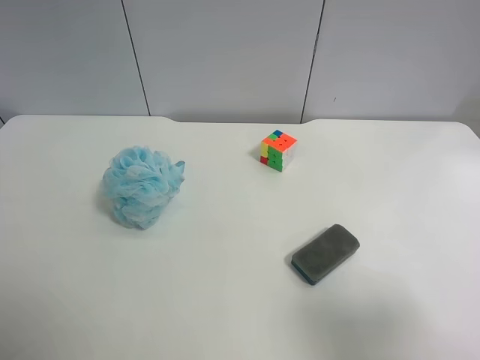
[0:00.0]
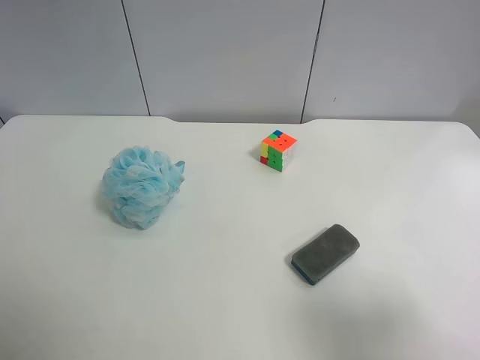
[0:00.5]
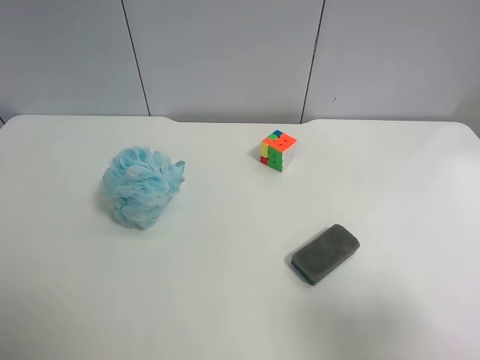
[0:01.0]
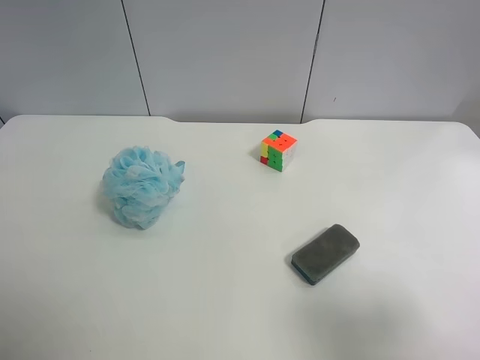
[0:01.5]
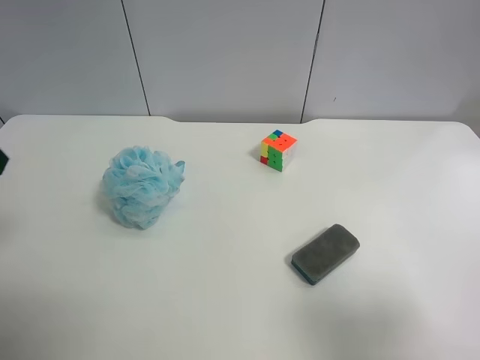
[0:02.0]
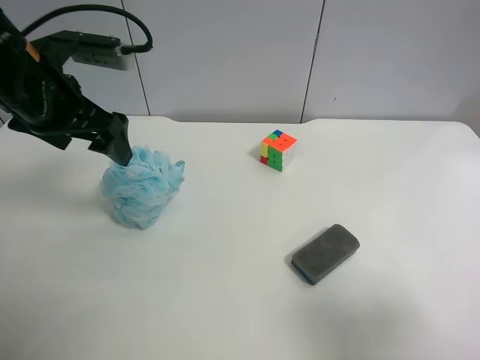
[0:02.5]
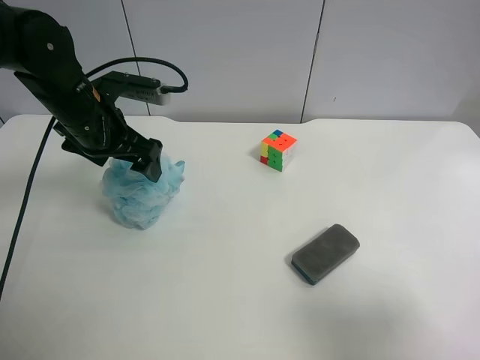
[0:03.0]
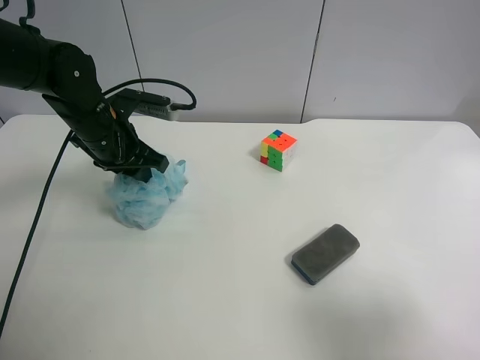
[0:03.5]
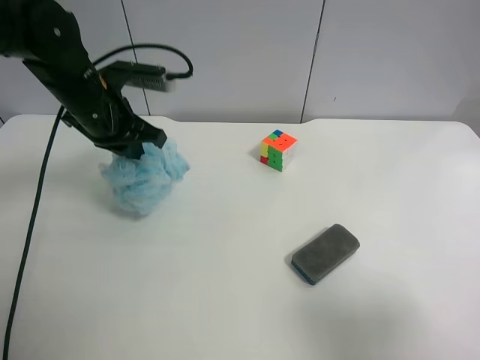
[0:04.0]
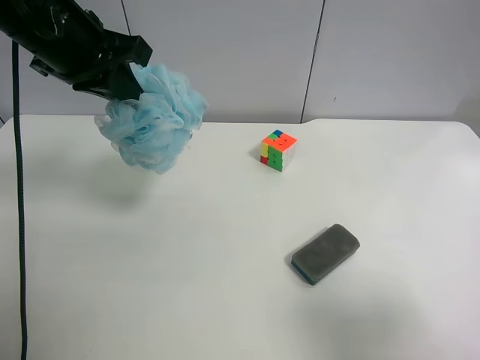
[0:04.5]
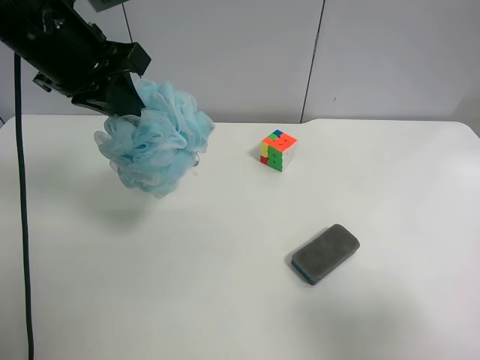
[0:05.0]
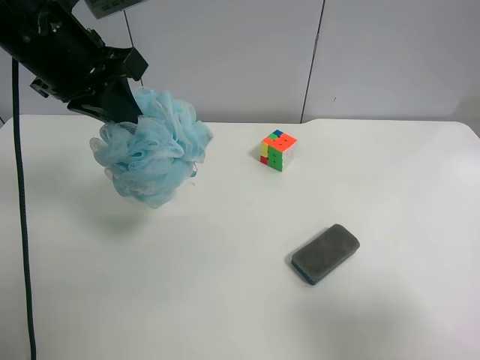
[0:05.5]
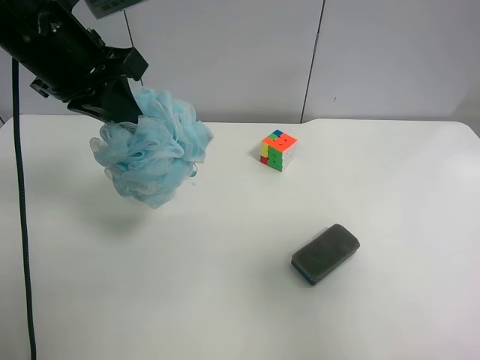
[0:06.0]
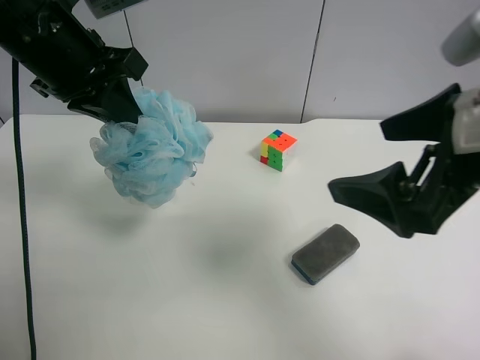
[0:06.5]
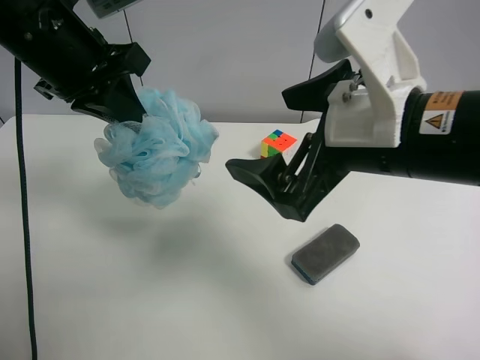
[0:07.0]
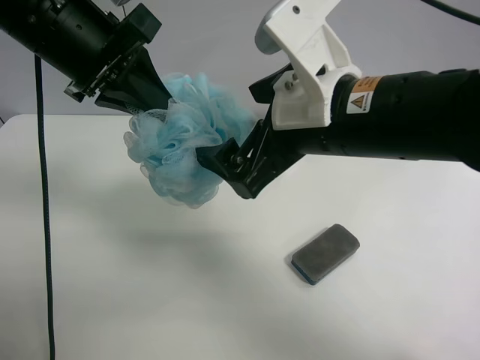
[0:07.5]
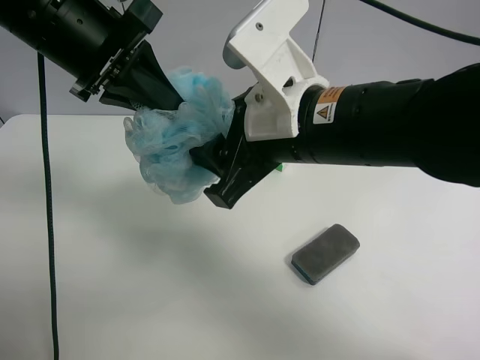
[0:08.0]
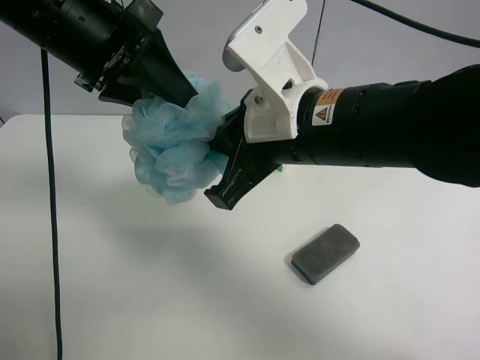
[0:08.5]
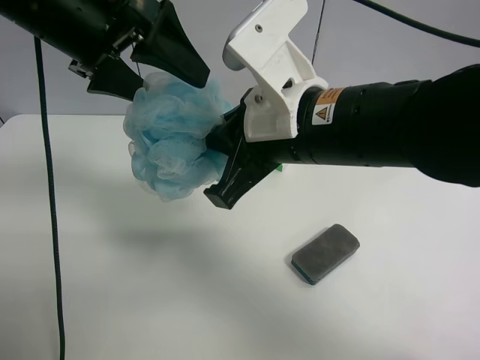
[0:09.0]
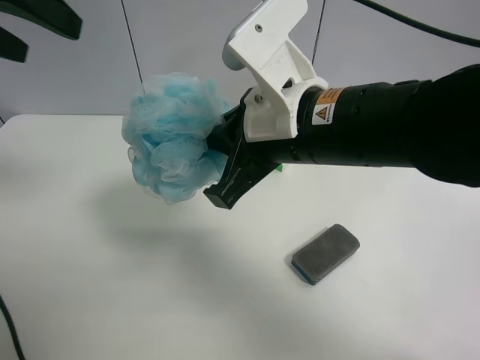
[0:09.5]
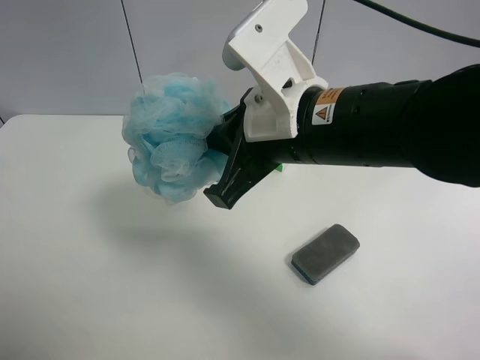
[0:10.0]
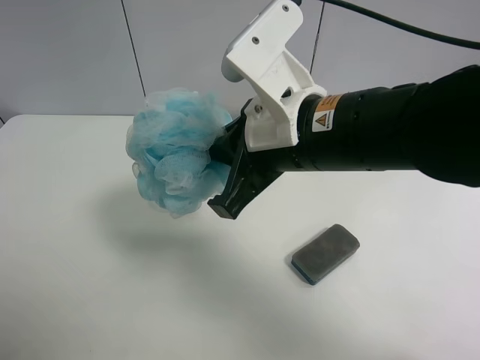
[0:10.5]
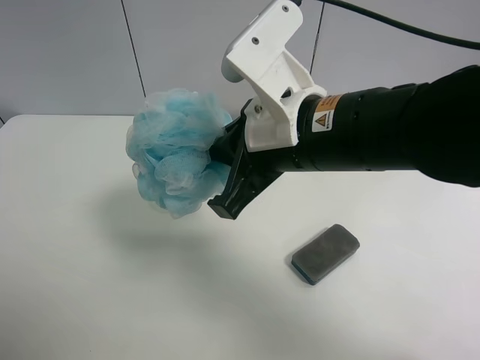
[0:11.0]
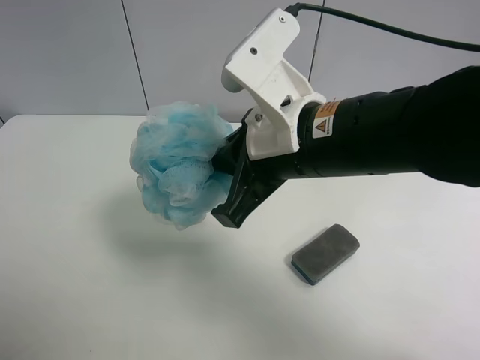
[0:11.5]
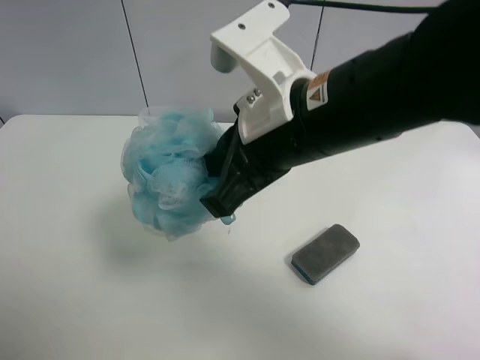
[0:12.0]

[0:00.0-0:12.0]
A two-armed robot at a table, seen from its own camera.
Task of the whole recording: use the left gripper to pick up the item and transfer it from the left gripper to the right gripper.
0:02.0 to 0:04.0: The left gripper shifts approximately 20 cm forward, to the right and downward, and closes up.
0:04.0 to 0:06.0: The left gripper moves upward and backward, about 10 cm. Meanwhile the right gripper moves forward, about 5 cm.
0:06.0 to 0:08.0: The right gripper goes roughly 25 cm to the left and forward, and closes up.
0:08.0 to 0:10.0: The left gripper goes approximately 20 cm to the left, backward and upward, and opens up. The right gripper closes its fingers.
0:10.0 to 0:12.0: The left gripper goes approximately 20 cm downward and backward.

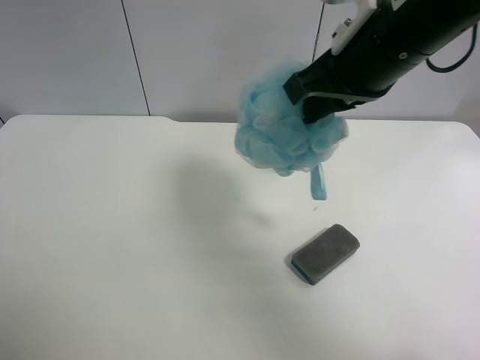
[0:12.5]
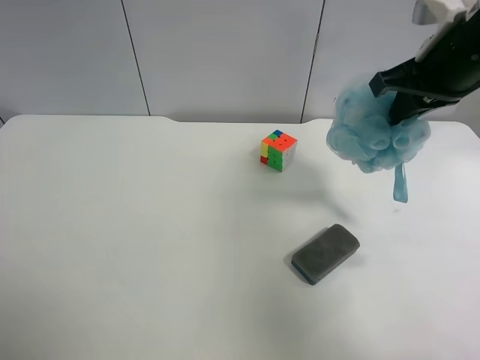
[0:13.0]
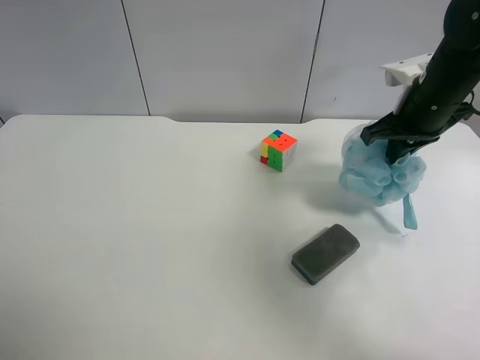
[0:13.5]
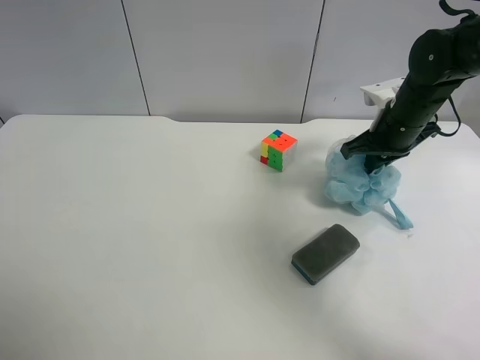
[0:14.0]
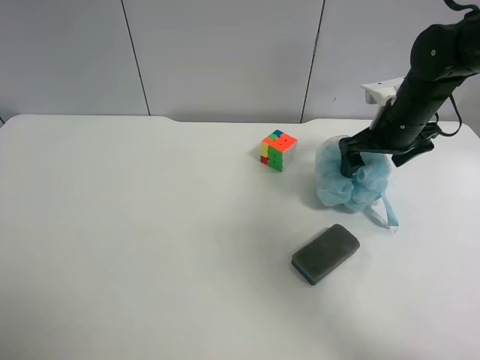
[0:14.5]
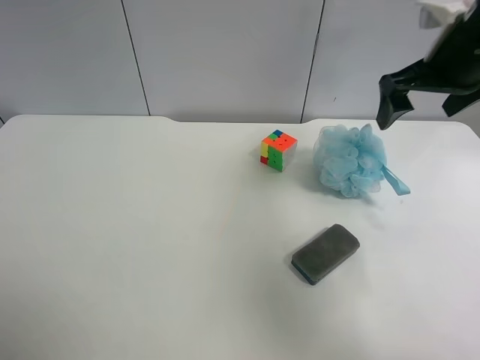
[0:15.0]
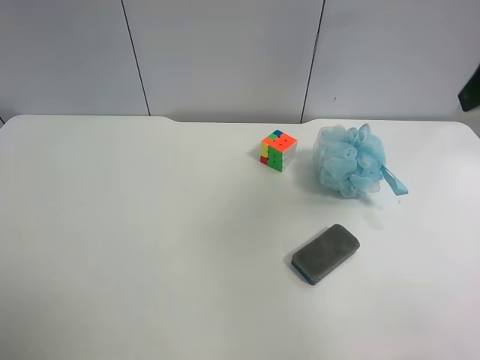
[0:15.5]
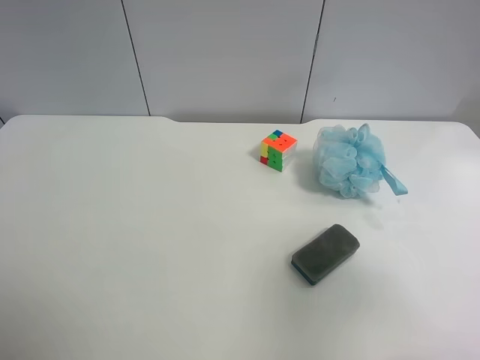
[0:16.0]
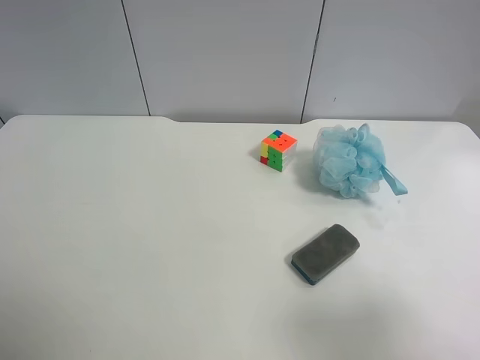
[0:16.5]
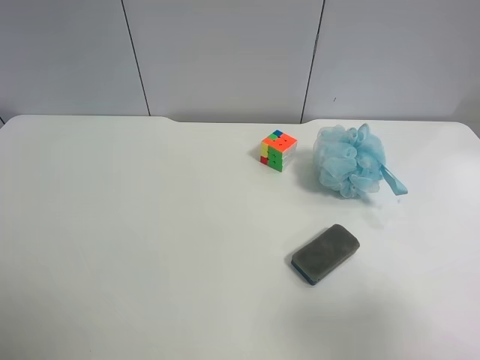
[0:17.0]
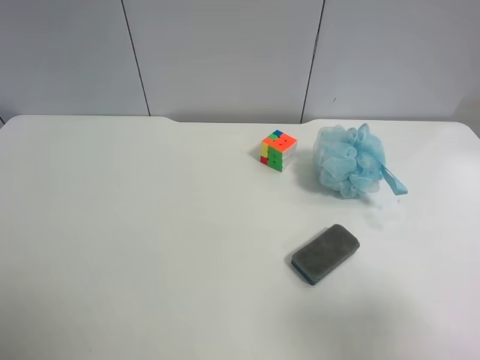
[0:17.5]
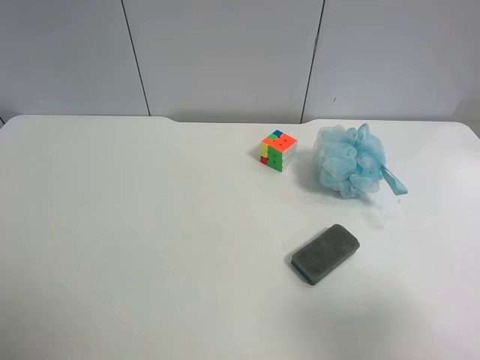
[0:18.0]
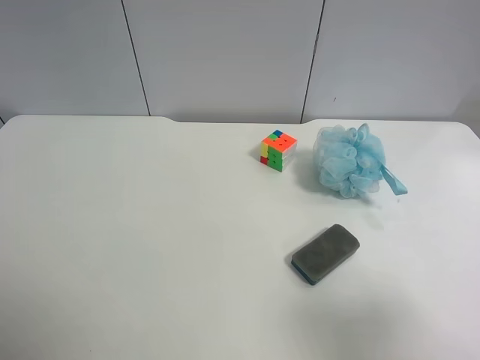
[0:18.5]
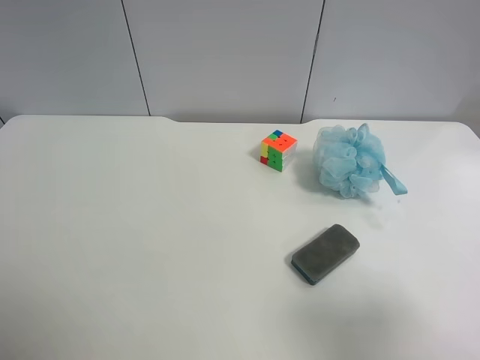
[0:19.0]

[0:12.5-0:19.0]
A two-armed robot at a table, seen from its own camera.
Task of the whole recording: use the left gripper to pick up the item and transfer it from the left gripper to the right gripper.
0:12.5 to 0:14.5: The right gripper is displaced downward, forward and to the right by approximately 20 cm, and opens up.
0:14.5 to 0:17.0: The right gripper moves backward, some 35 cm.

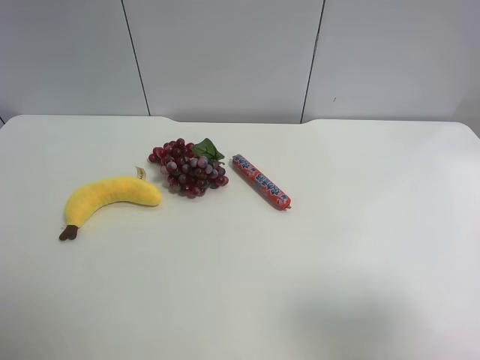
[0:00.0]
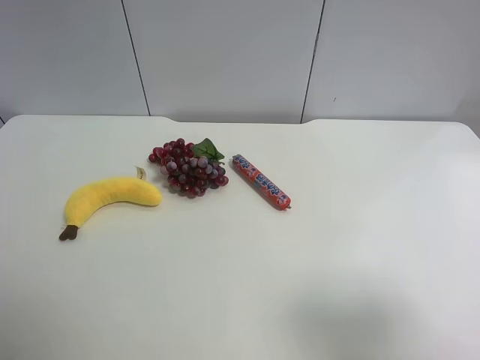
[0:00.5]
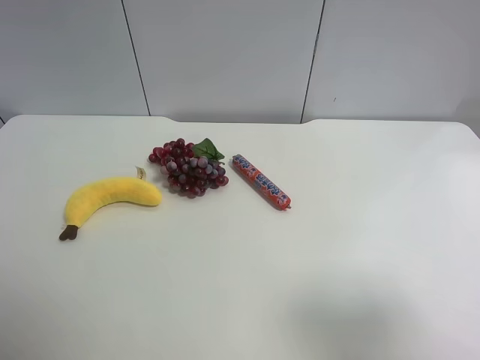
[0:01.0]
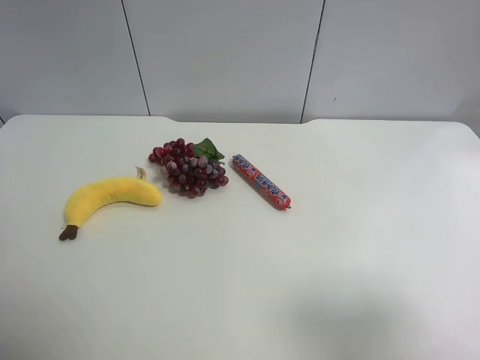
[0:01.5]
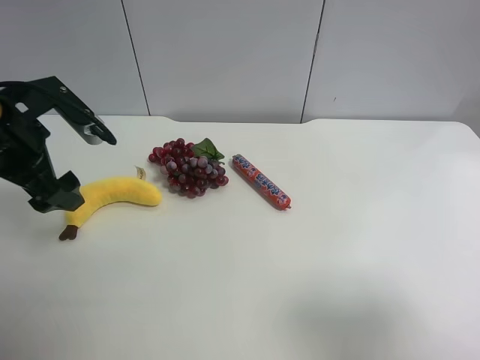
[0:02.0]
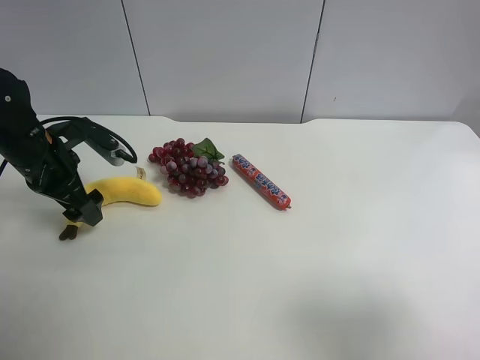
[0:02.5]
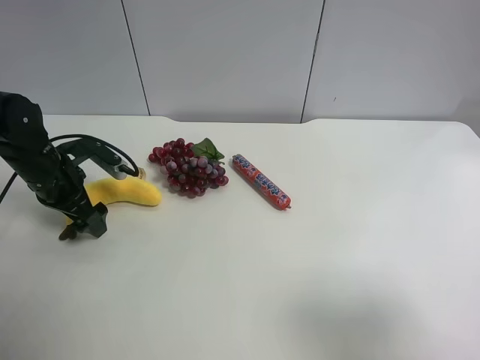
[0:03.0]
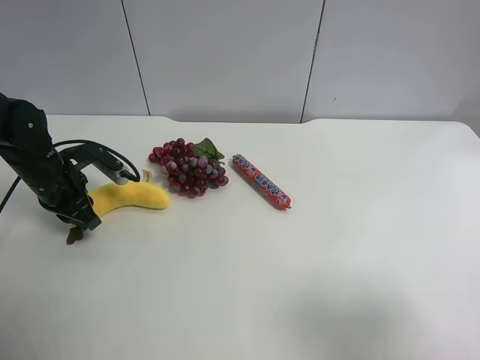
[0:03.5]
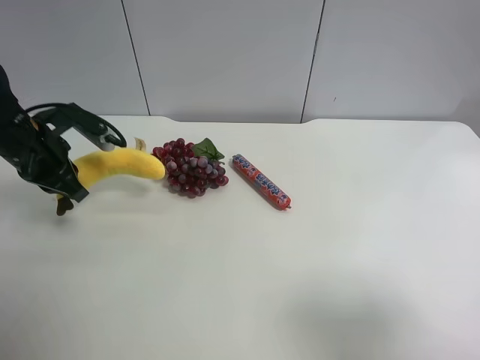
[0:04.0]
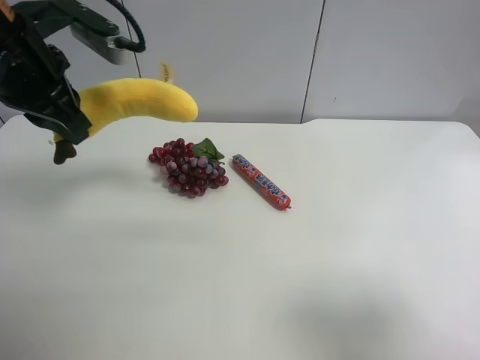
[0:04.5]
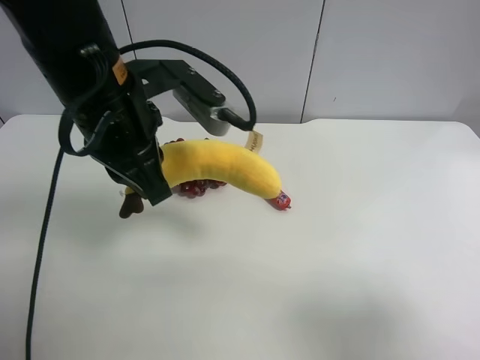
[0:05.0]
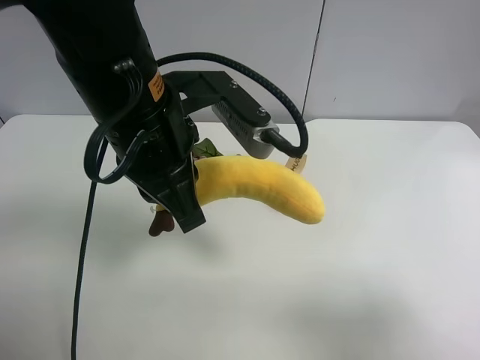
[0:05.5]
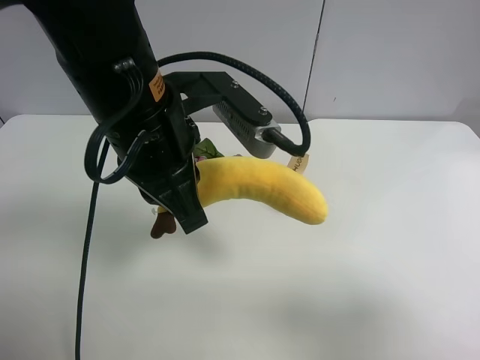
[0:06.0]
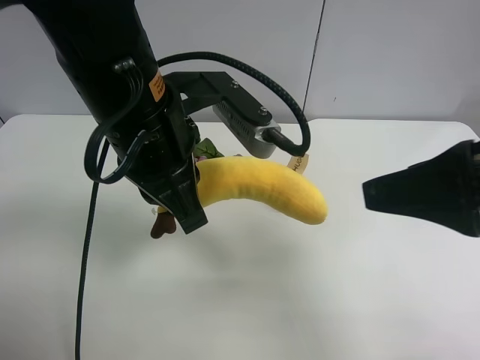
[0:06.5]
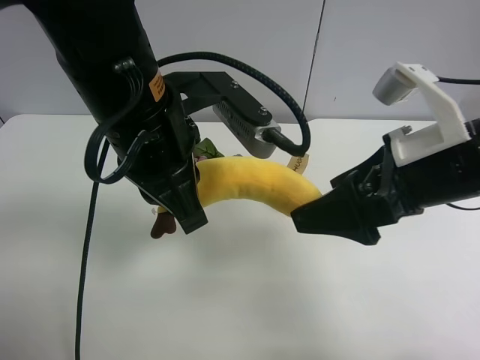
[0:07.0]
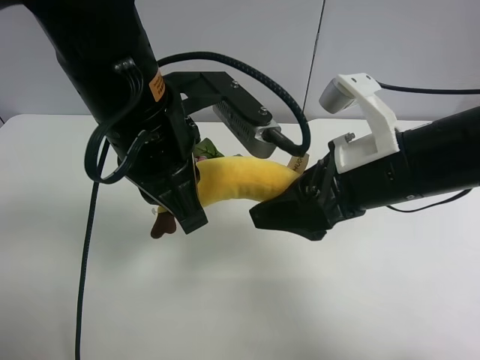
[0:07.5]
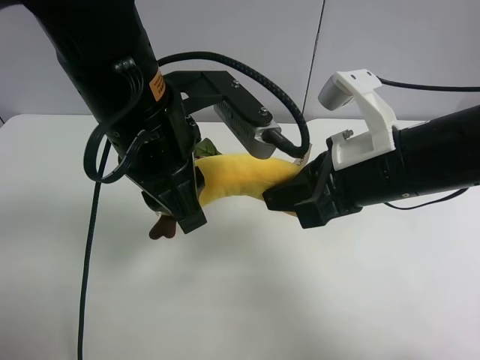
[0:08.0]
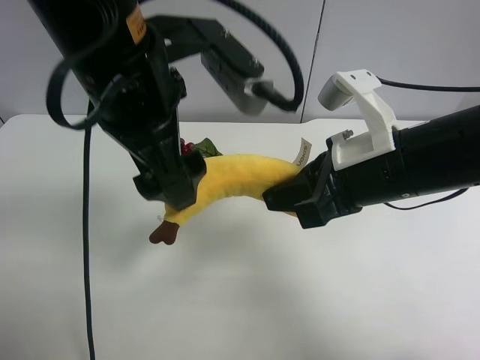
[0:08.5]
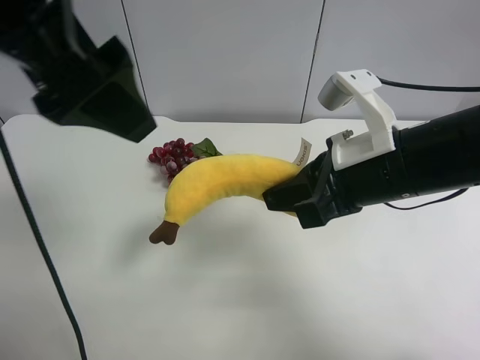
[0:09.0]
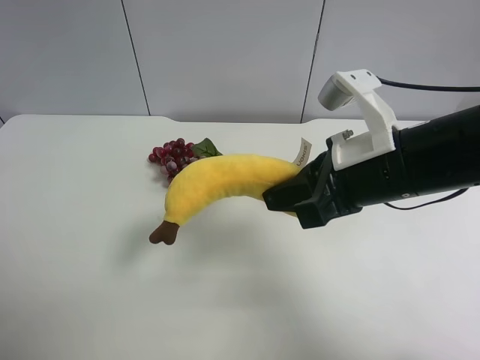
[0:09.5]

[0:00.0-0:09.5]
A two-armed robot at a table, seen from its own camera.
Task of the whole recording: use the left gripper to pick up the item and transfer it from the left gripper to the right gripper.
0:00.0 to 0:02.0: The left gripper goes roughly 25 cm forward.
0:02.0 to 0:04.0: The left gripper reaches about 10 cm downward, then returns, and closes its fingers.
0:04.0 to 0:05.5: The left gripper moves to the right, backward and upward, roughly 25 cm.
0:05.5 to 0:07.5: The right gripper moves forward and to the left, about 25 cm, and closes up.
0:07.5 to 0:09.5: The left gripper heads to the left and backward, covering roughly 25 cm, and opens its fingers. Meanwhile the right gripper closes its fingers.
